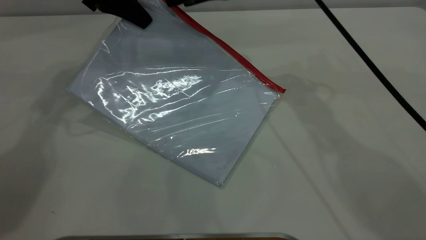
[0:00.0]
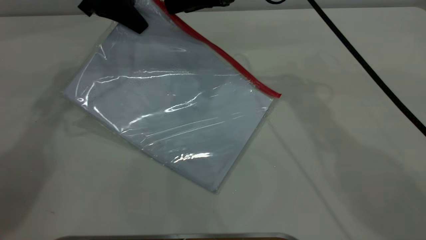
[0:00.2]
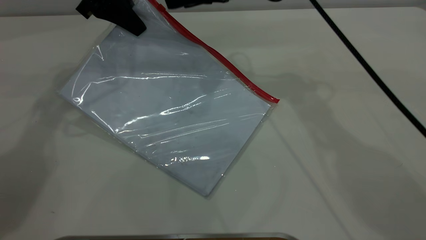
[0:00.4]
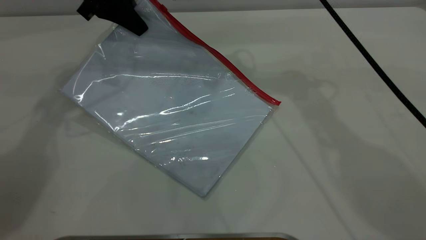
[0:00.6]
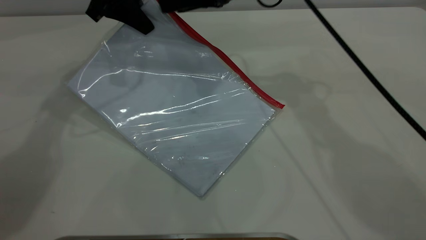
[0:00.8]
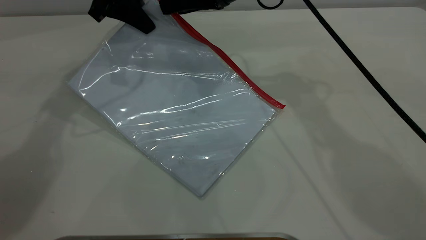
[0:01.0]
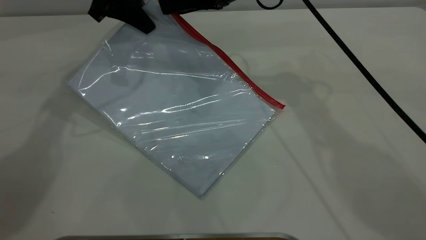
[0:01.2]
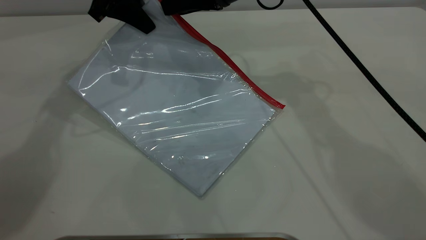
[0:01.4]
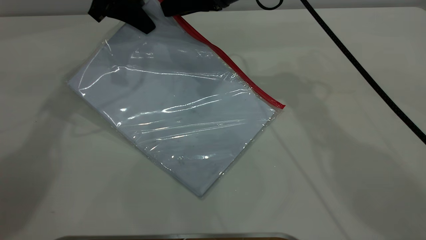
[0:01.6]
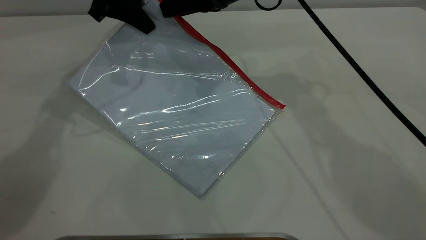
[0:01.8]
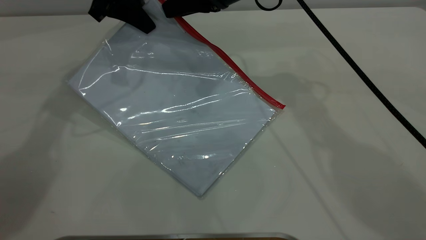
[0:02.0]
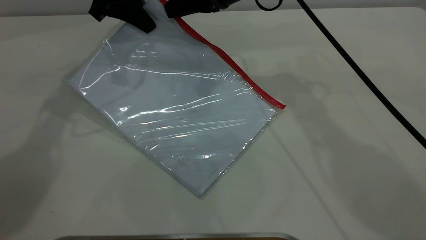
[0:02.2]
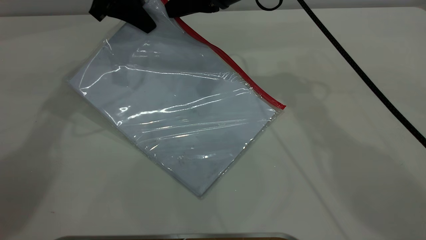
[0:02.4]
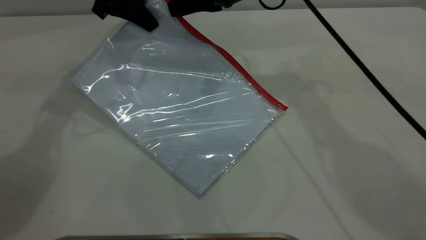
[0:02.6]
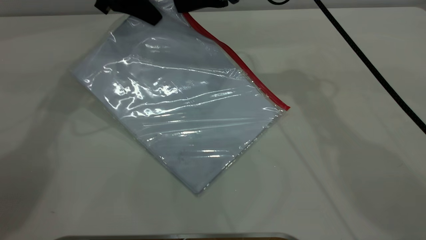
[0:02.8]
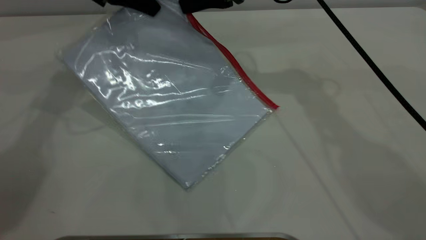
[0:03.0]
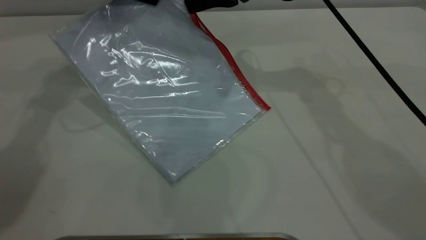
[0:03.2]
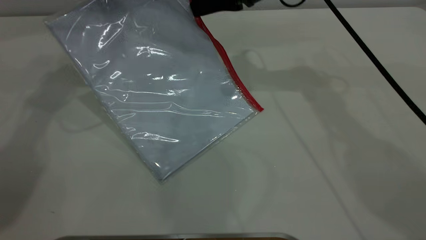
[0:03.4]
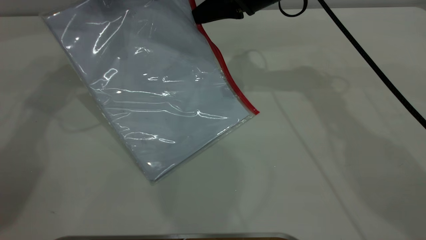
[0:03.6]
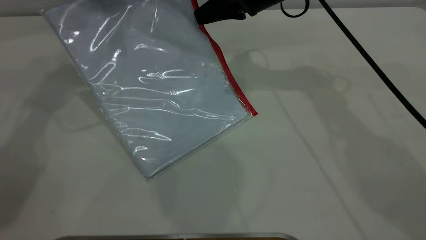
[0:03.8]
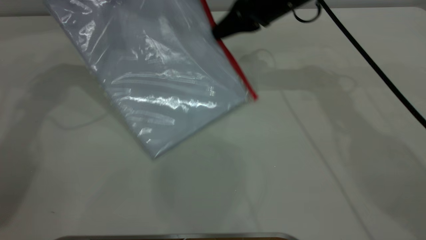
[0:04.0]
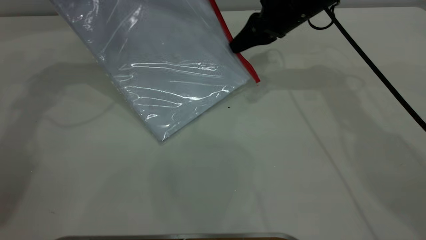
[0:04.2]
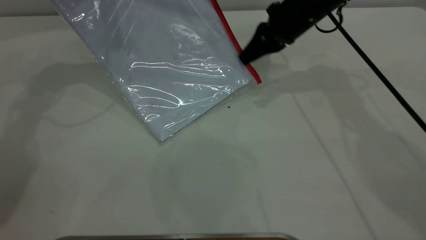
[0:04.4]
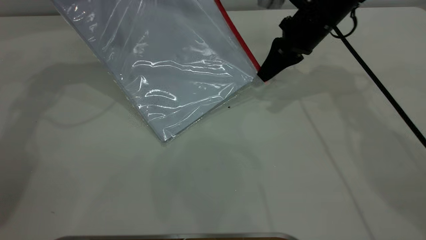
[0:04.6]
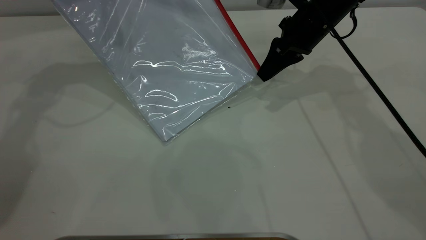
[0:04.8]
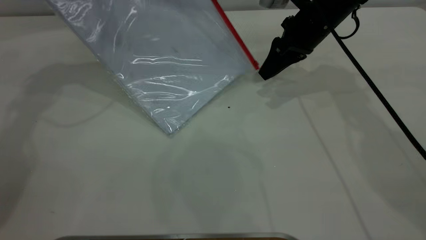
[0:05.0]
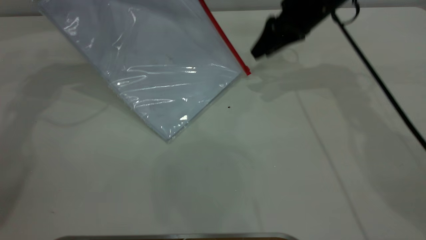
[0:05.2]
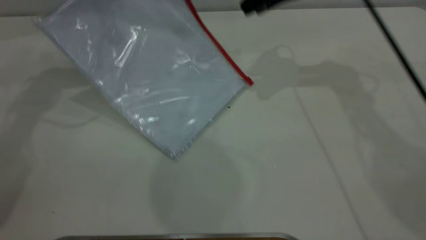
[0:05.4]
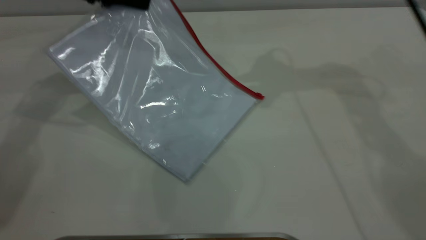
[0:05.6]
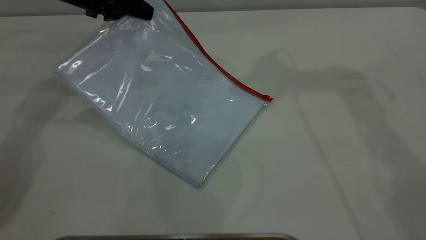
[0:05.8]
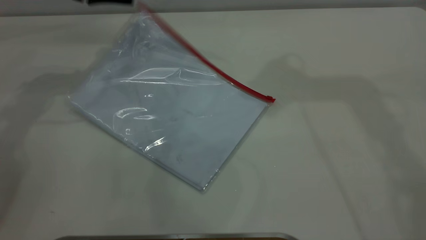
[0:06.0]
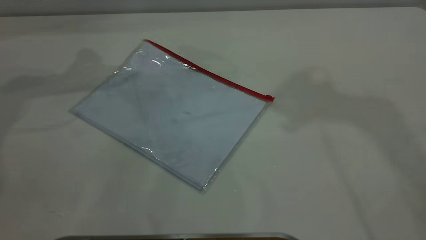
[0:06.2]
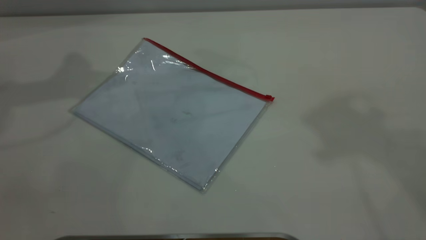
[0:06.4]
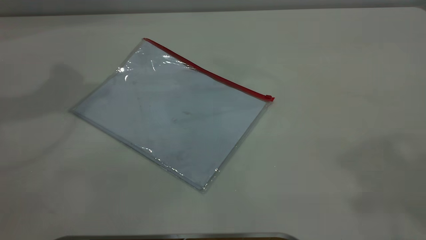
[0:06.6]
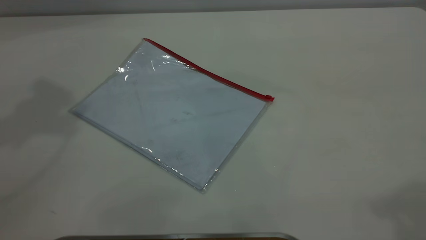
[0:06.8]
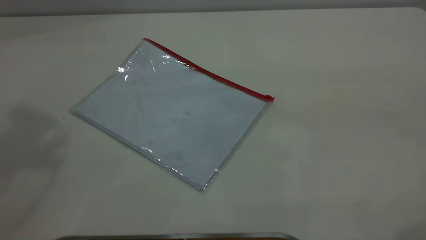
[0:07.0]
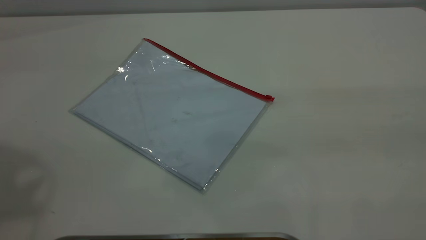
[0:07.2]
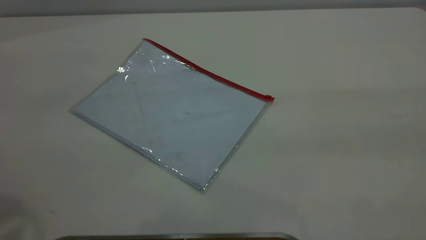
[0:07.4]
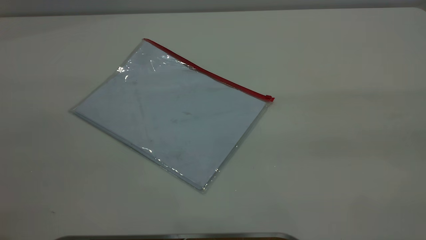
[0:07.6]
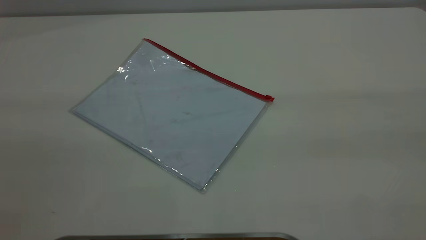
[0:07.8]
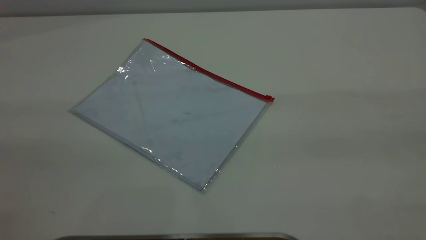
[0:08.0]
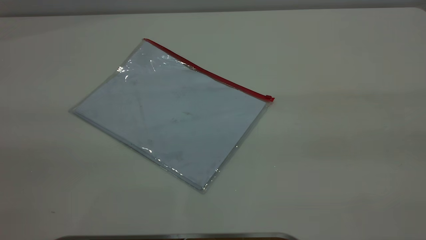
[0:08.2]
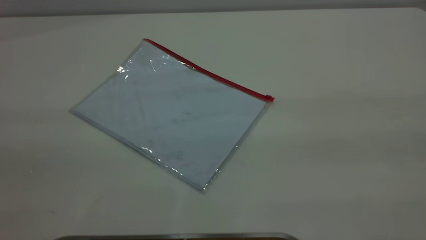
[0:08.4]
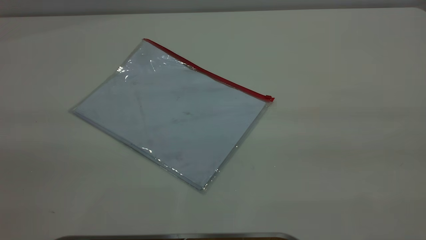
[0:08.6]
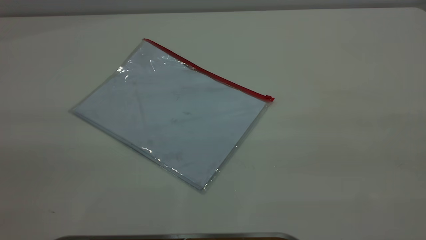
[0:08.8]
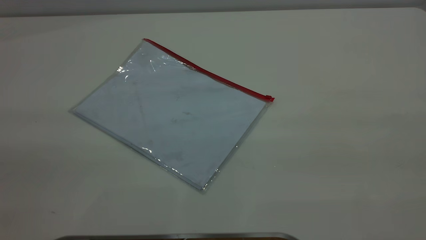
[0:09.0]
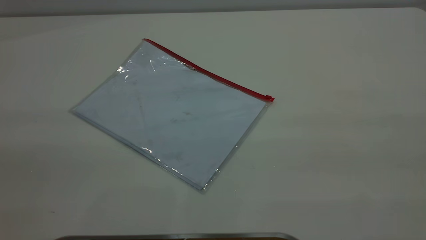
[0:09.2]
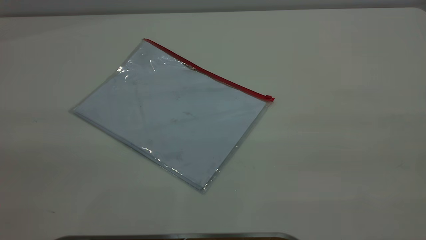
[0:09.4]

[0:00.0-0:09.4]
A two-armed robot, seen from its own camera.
Step, 0:00.0 to 0:05.0: Pulling up the zipper on the transparent plastic bag with the right gripper to close it.
Step, 0:05.4 to 0:06.0: Place the transparent plastic bag.
0:00.0 to 0:01.6: There are only small adjustments of the grippers.
0:01.6 to 0:03.2: The right gripper closes.
0:03.2 to 0:04.8: The right gripper goes approximately 10 cm to the right and downward.
0:04.8 to 0:06.2: The right gripper shifts about 35 cm upward, and opens; the left gripper is displaced to the left by approximately 5 cm, and opens its fingers.
